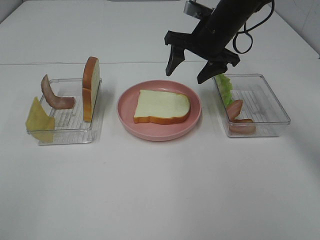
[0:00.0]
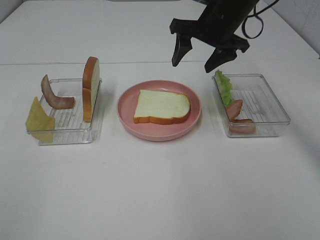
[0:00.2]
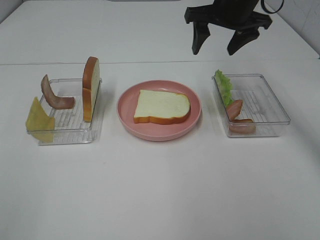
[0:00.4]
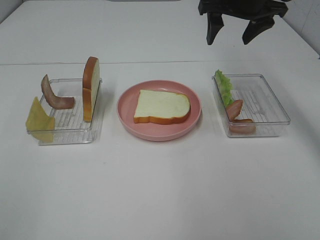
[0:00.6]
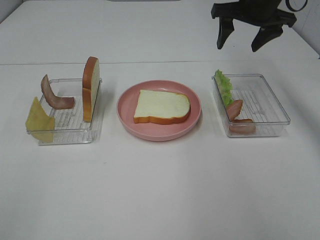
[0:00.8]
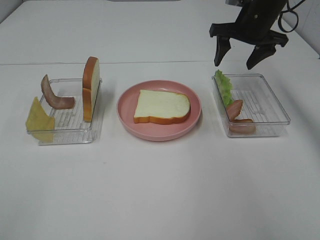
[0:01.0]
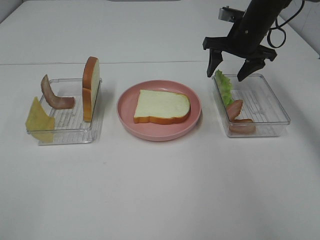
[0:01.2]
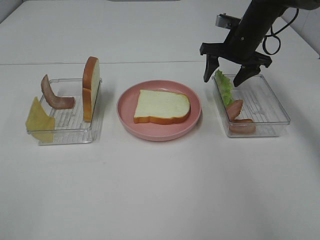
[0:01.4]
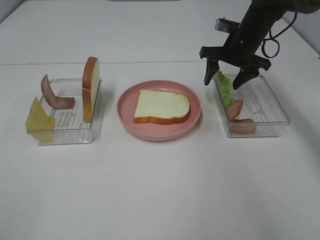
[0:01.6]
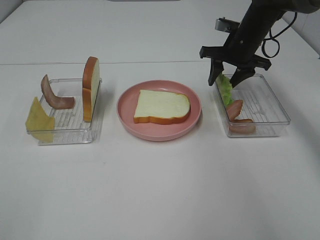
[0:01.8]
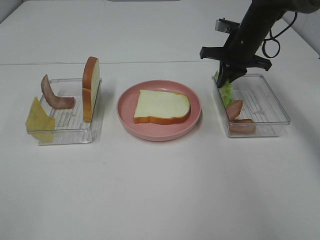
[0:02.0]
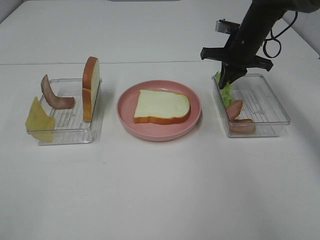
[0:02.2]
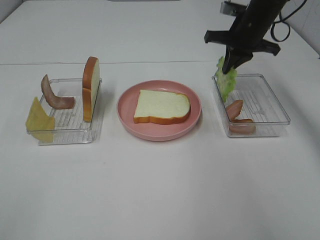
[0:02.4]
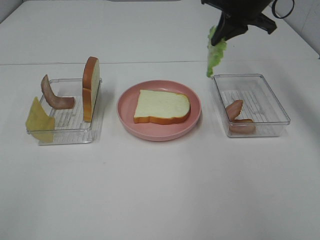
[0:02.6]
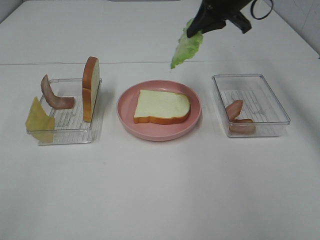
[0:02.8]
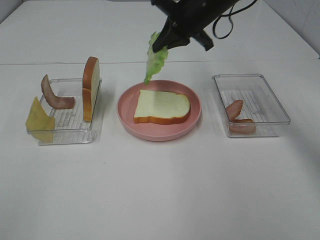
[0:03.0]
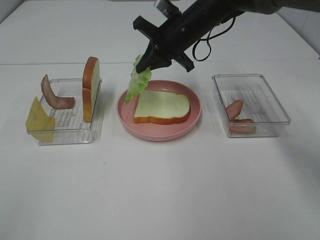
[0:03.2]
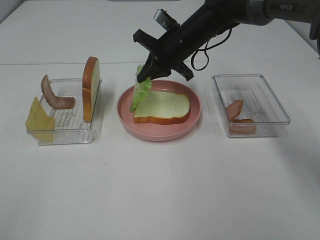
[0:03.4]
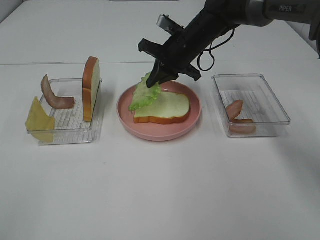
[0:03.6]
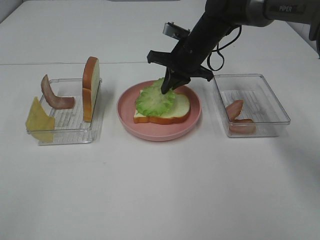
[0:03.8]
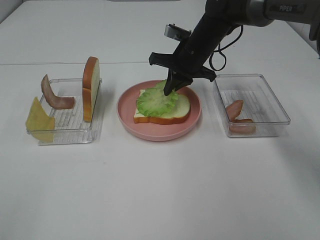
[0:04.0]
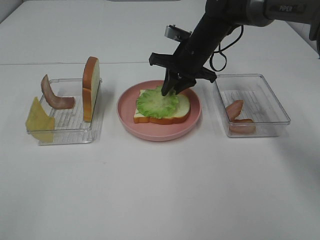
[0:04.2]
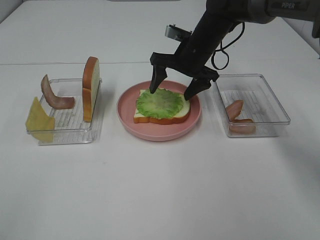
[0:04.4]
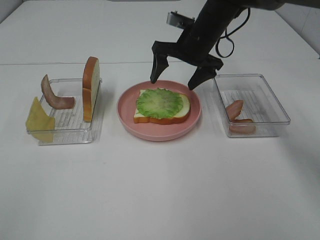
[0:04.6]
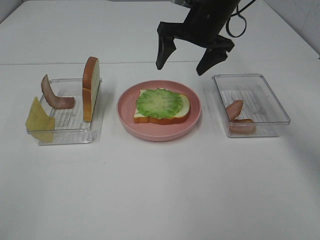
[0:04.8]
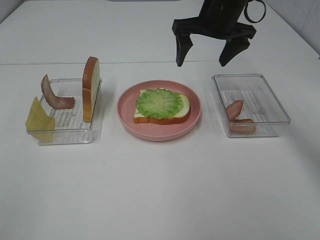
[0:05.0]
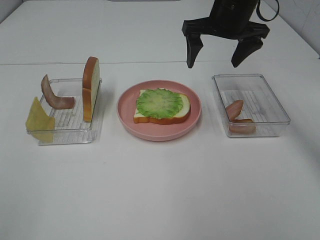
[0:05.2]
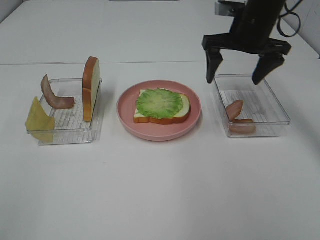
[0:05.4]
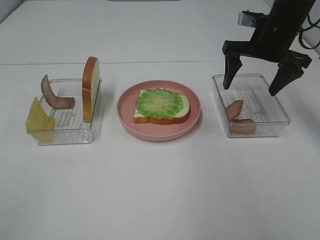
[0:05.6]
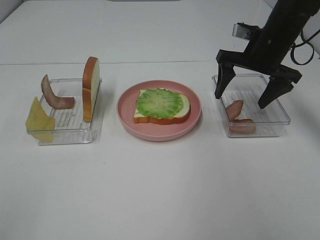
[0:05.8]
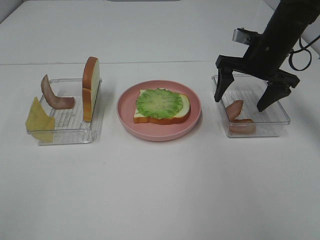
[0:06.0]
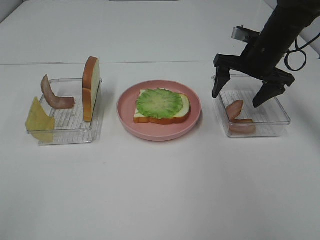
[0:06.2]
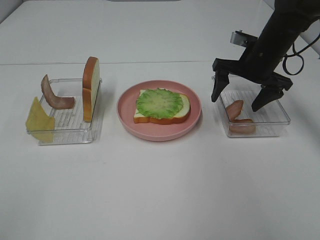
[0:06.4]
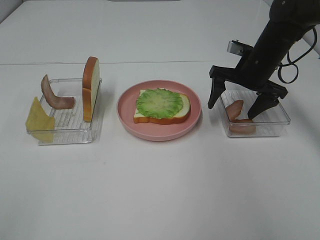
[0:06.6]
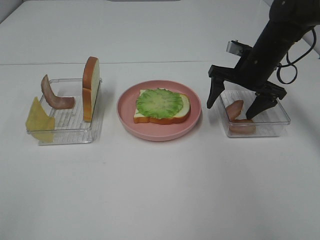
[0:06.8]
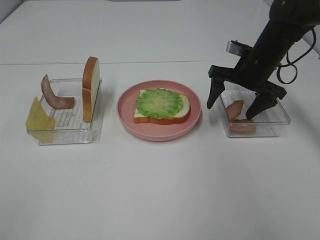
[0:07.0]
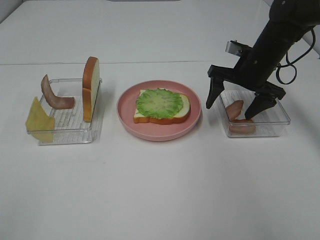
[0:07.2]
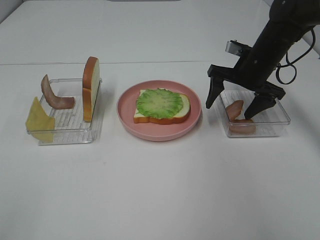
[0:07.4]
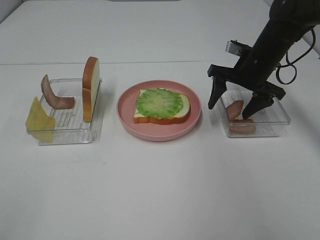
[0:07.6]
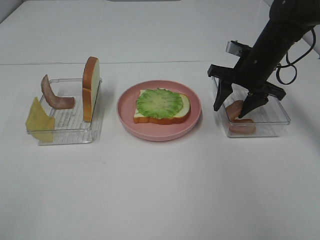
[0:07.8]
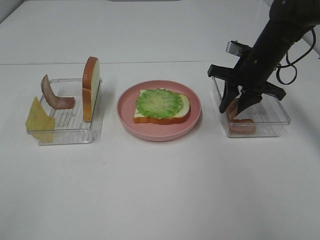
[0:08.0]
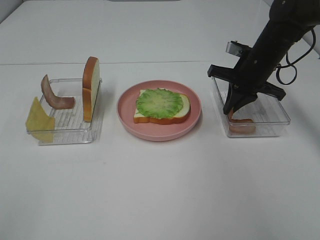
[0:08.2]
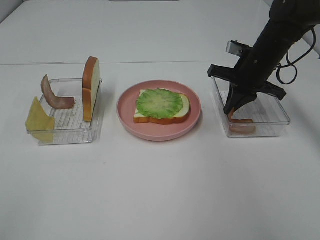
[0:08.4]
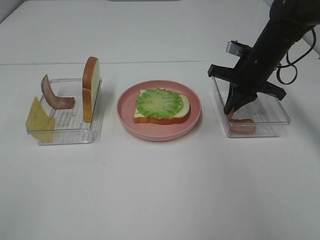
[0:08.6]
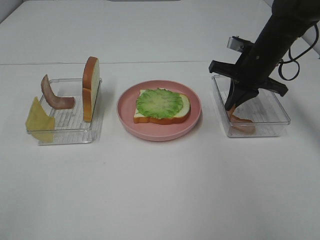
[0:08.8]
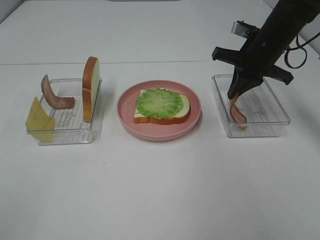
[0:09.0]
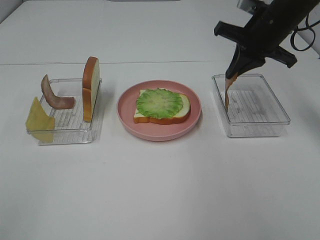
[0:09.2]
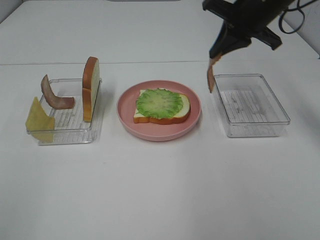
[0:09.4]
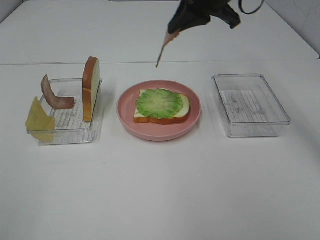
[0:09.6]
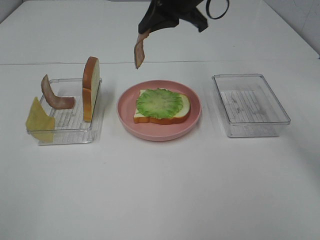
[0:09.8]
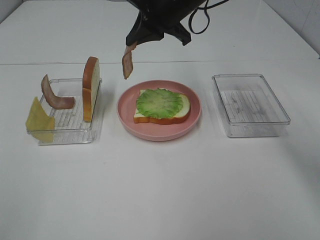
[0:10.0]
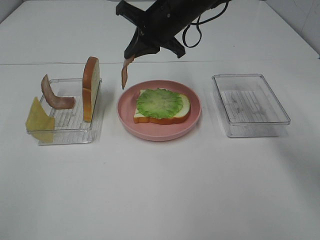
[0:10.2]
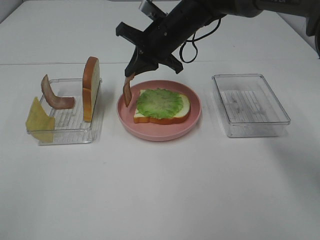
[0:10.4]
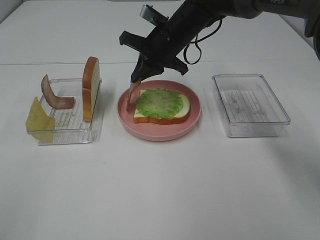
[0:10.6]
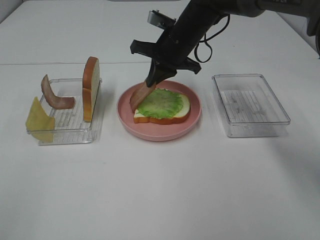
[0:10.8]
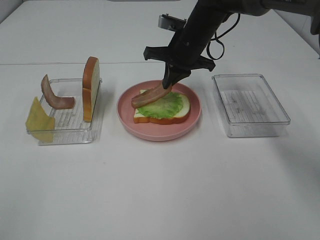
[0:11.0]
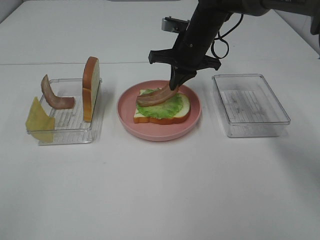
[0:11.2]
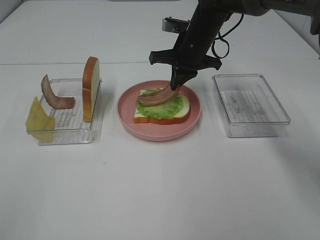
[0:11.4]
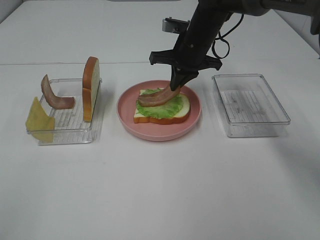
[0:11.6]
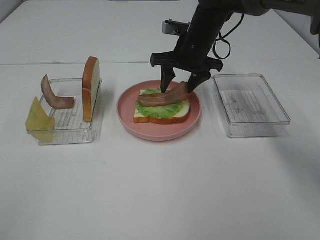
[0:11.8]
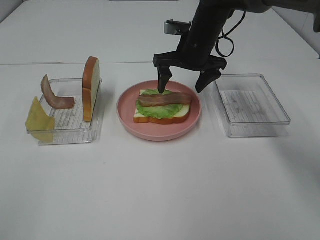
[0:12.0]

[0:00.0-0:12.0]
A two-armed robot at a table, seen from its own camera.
Task of the whole recording: Make sandwiches.
Step, 0:00.2 to 0:02.2: Right hand:grab the lettuce slice.
Step, 0:02.4 to 0:04.8: Right hand:place the lettuce slice on the bread slice.
Step, 0:05.0 to 0:08.6: Right hand:grab the bacon.
0:00.0 to 0:01.6: The right gripper goes about 5 cm to the right.
0:01.6 to 0:03.0: The right gripper heads to the left and upward, covering roughly 10 cm, and closes its fingers.
0:03.0 to 0:04.4: The right gripper goes about 5 cm downward, and opens.
0:04.4 to 0:06.0: The right gripper heads to the right, covering about 10 cm.
0:06.0 to 0:07.6: There are only small adjustments of the grippers.
0:07.6 to 0:09.0: The right gripper closes up.
0:09.0 to 0:10.4: The right gripper moves to the left, some 15 cm.
0:10.4 to 0:12.0: The right gripper moves to the right, approximately 5 cm, and opens its fingers.

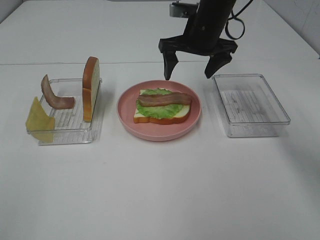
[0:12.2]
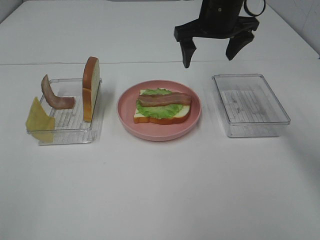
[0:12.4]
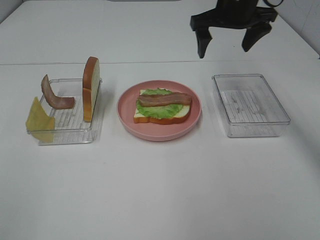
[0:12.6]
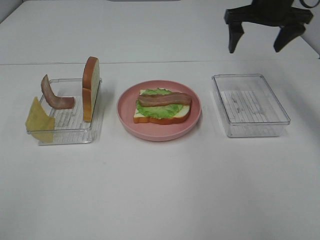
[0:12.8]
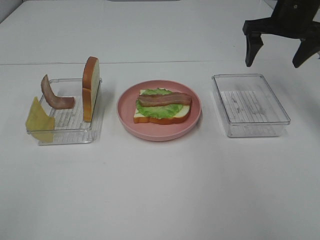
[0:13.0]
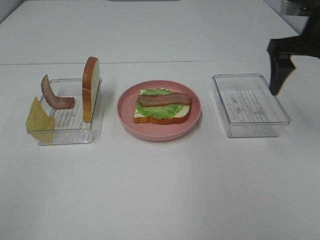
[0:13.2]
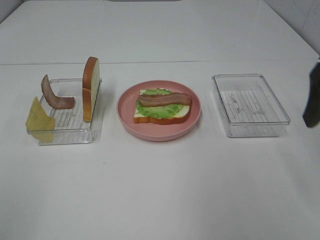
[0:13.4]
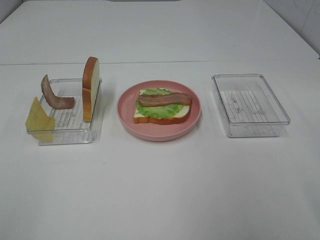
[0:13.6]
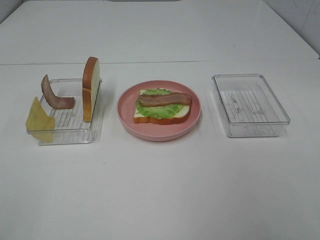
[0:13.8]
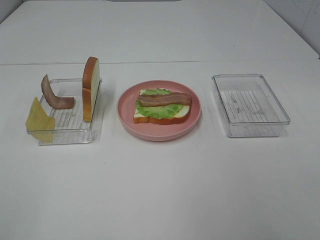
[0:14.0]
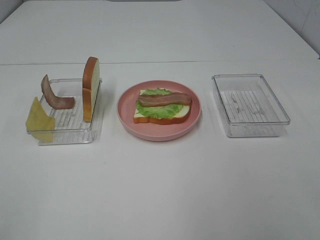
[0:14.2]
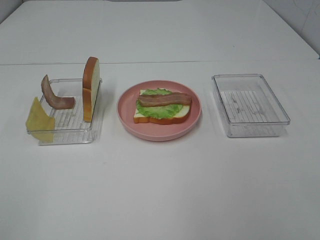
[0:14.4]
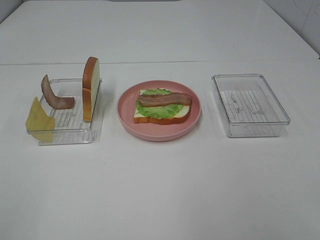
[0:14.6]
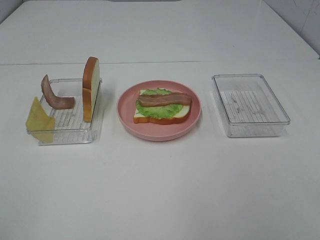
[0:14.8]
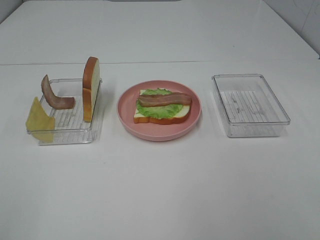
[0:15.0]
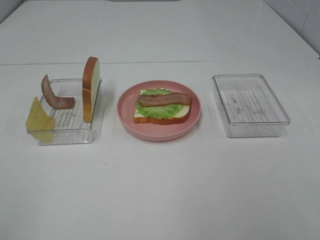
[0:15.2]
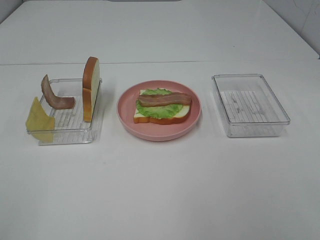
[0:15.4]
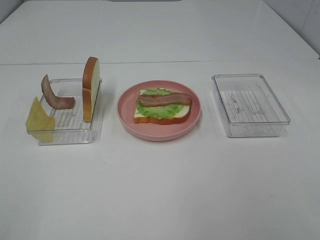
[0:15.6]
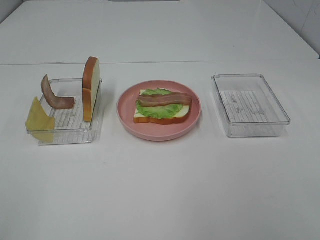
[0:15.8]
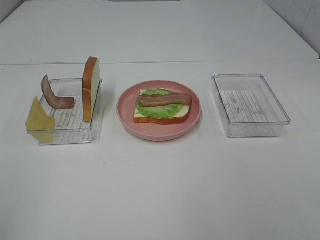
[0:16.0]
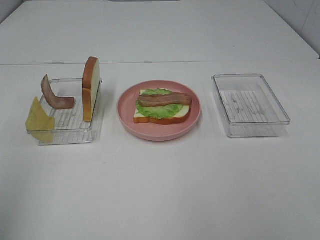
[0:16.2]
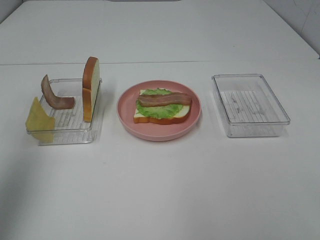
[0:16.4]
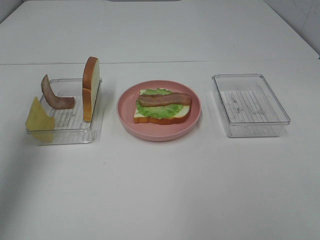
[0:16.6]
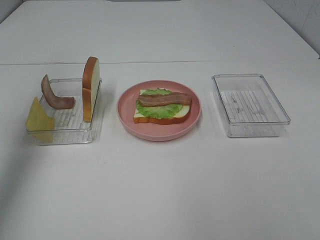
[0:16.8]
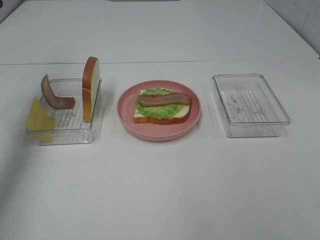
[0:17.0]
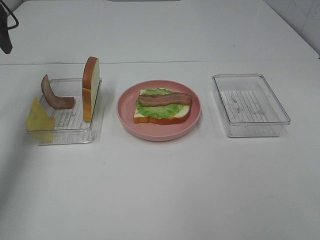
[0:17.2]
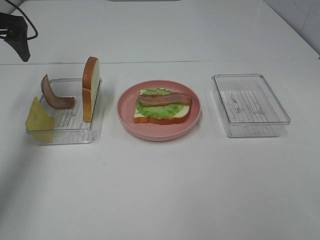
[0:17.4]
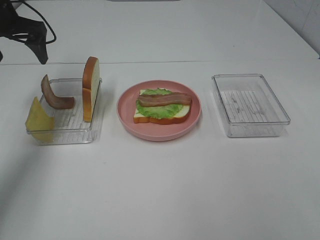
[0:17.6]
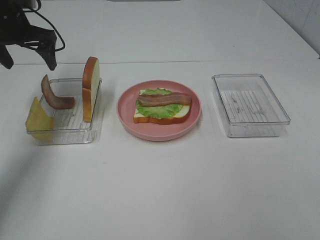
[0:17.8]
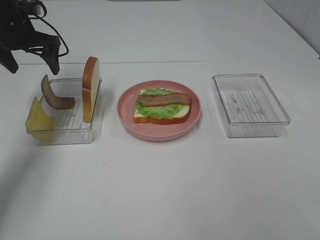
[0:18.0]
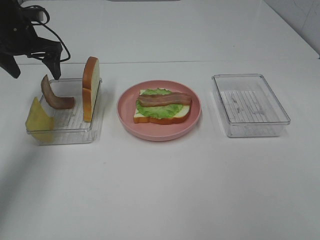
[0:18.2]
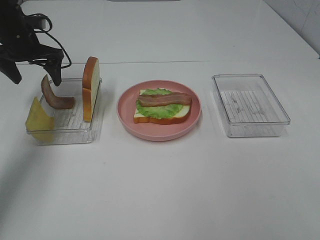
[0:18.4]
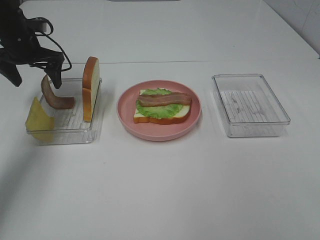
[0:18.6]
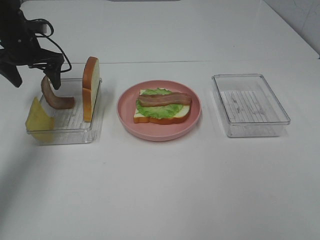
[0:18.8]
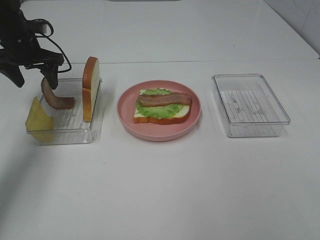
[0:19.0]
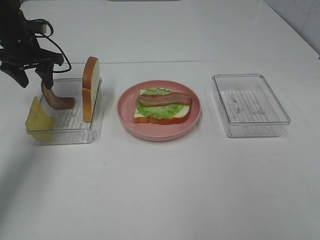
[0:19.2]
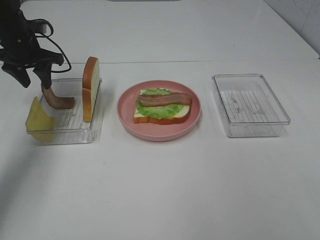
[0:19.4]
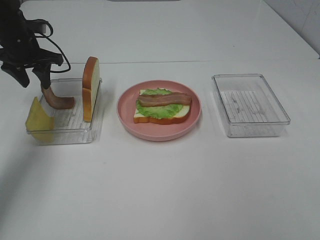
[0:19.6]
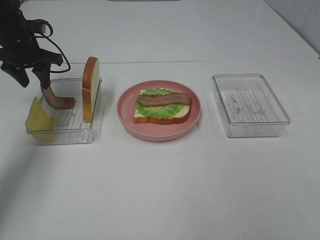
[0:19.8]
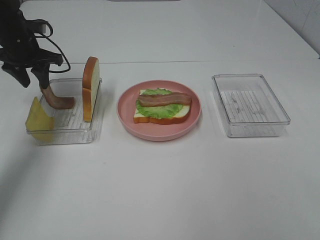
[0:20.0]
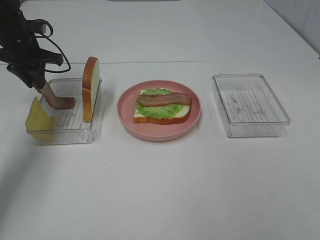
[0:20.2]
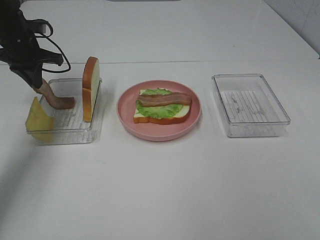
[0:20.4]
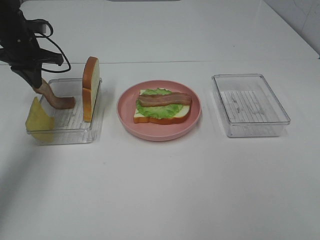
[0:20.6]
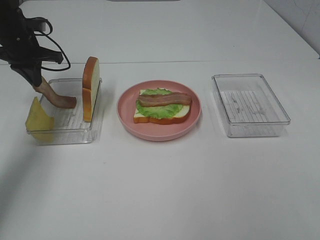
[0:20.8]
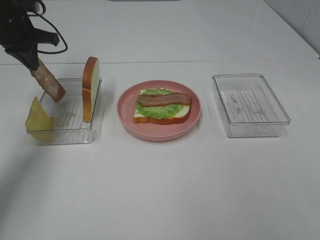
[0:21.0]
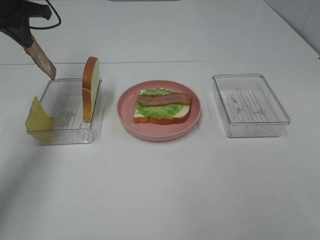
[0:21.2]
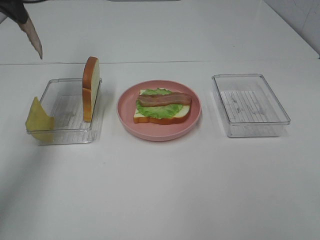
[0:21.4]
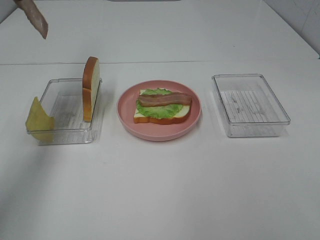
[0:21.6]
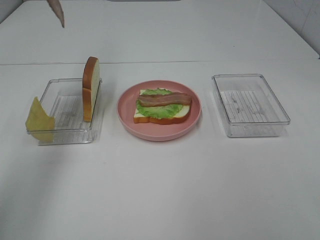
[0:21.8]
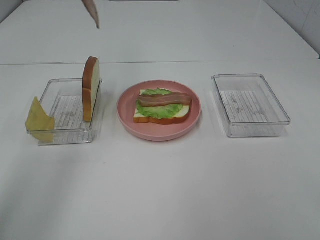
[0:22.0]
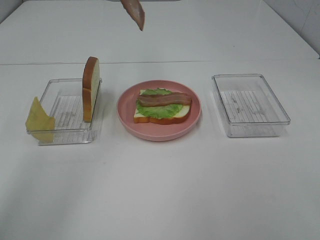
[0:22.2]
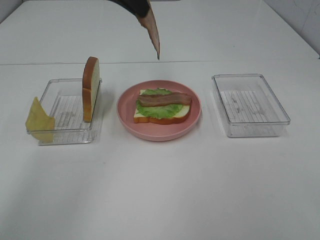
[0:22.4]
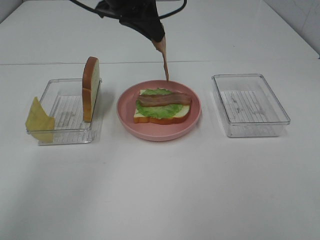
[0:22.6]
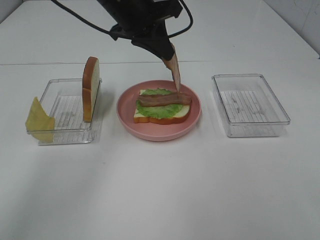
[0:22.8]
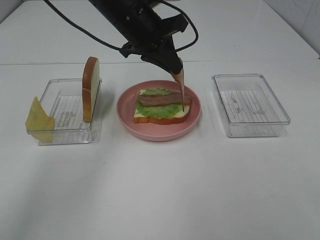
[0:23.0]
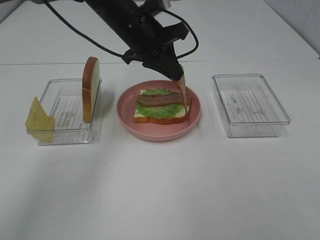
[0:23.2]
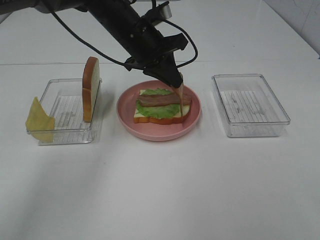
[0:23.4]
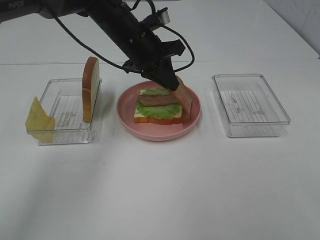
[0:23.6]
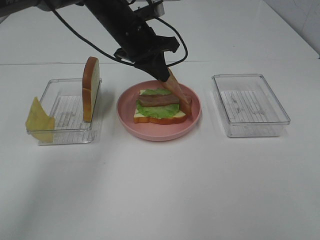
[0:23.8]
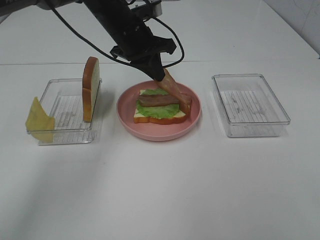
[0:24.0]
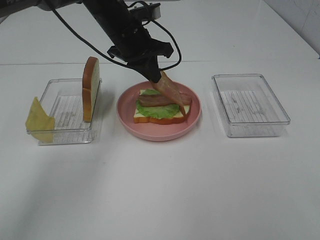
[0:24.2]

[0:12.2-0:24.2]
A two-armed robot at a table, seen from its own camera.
Task of the whole recording: Make sandwiches.
Step, 0:12.2 to 0:20.4: Left hand:grab the bacon.
0:12.2 to 0:13.8: The right gripper goes about 40 cm backward and to the right.
0:15.2 to 0:16.6: The left gripper heads forward, covering roughly 30 cm.
0:16.6 to 0:18.2: The left gripper goes approximately 30 cm forward and downward.
0:18.2 to 0:19.8: The left gripper closes its fingers.
0:19.8 to 0:21.2: The left gripper moves upward, roughly 10 cm, and closes up.
0:21.2 to 0:22.6: The left gripper heads to the right, covering approximately 20 cm.
0:22.6 to 0:24.2: The left gripper heads downward, covering about 10 cm.
